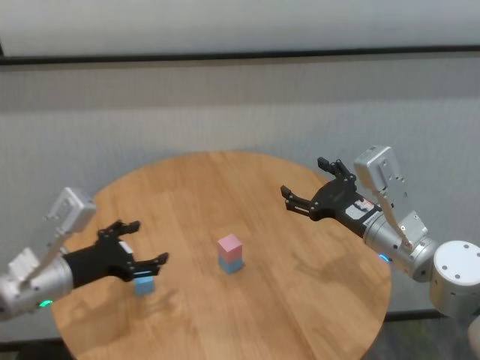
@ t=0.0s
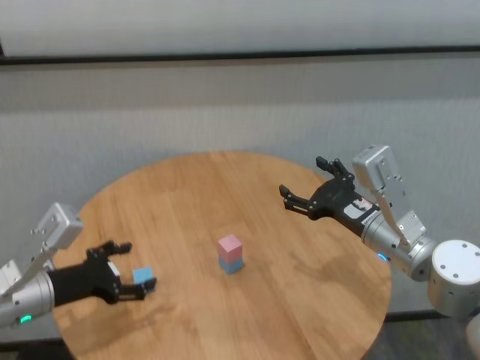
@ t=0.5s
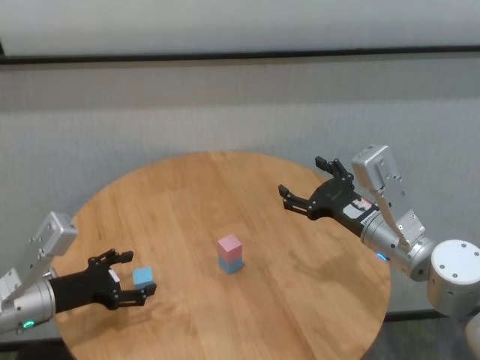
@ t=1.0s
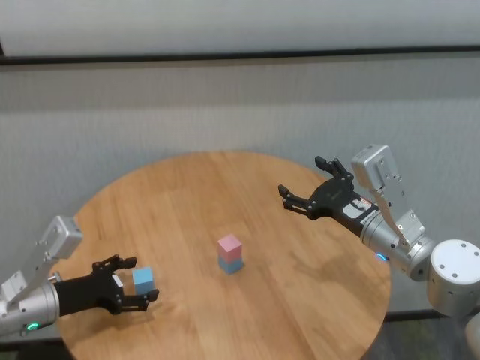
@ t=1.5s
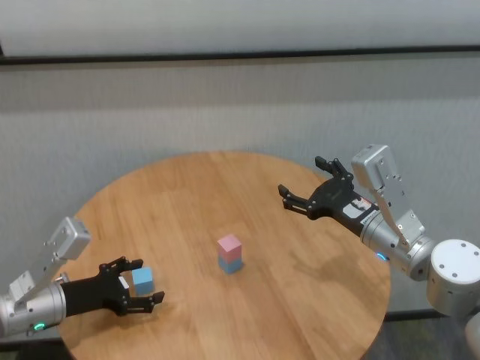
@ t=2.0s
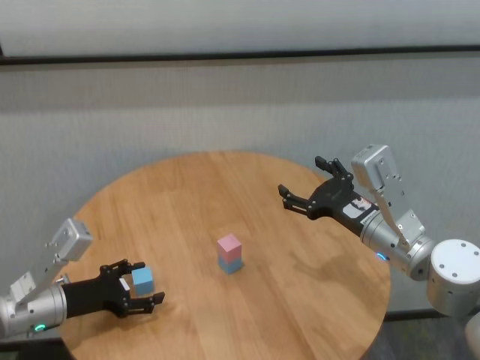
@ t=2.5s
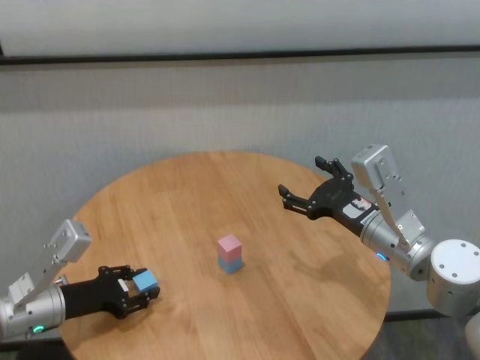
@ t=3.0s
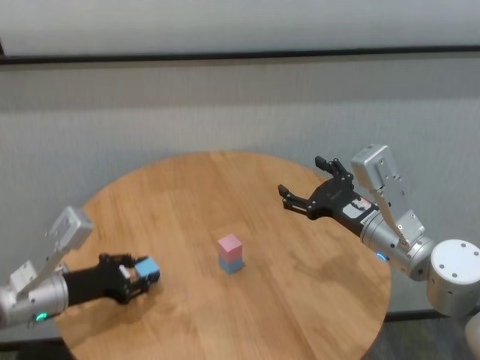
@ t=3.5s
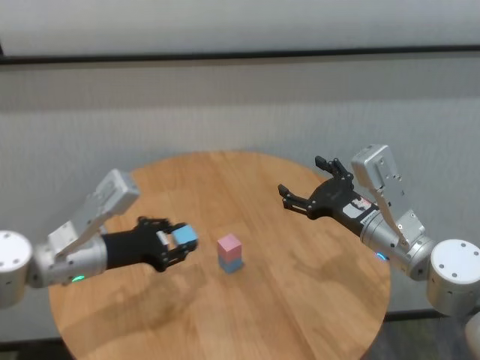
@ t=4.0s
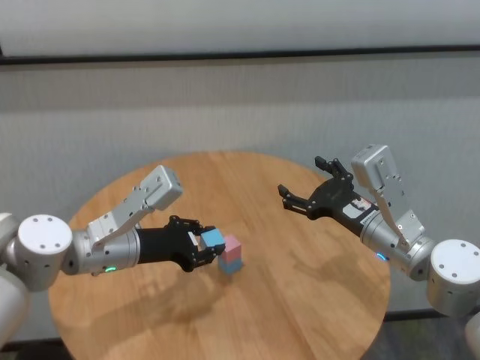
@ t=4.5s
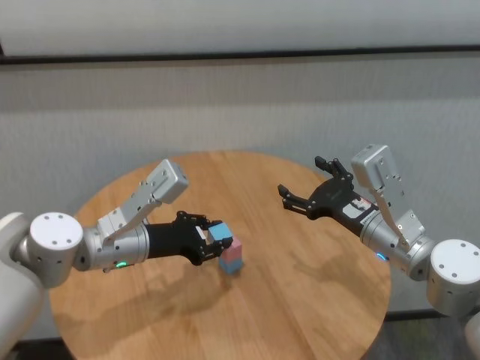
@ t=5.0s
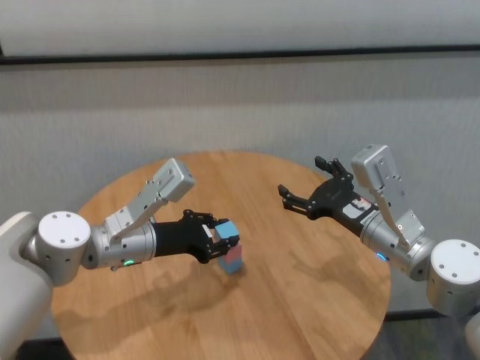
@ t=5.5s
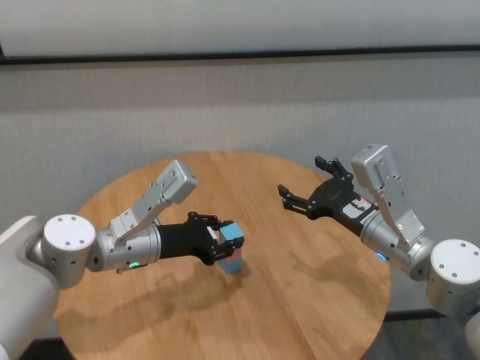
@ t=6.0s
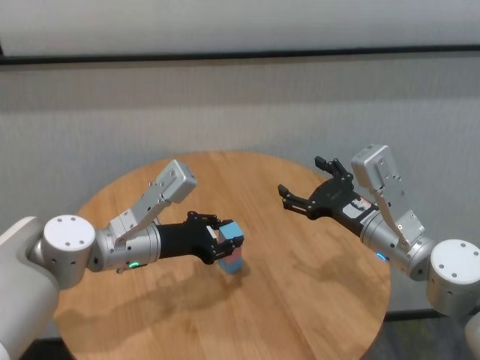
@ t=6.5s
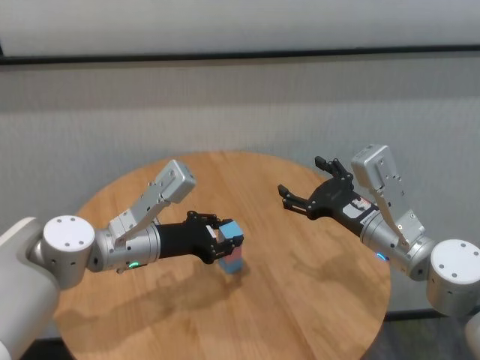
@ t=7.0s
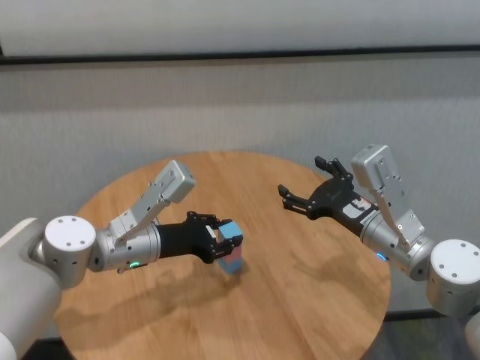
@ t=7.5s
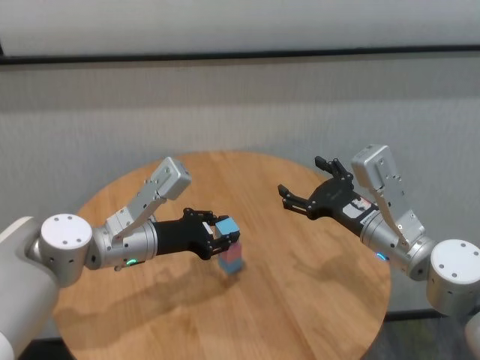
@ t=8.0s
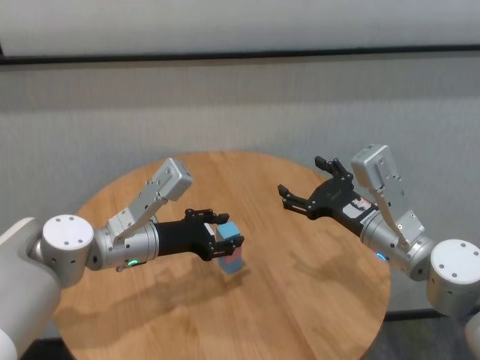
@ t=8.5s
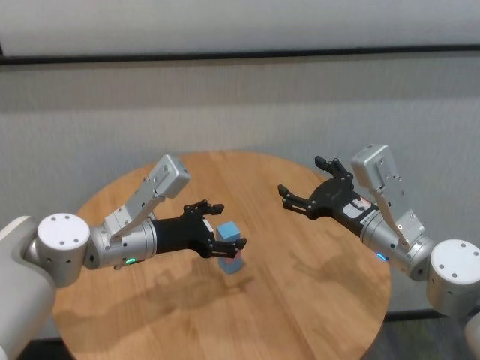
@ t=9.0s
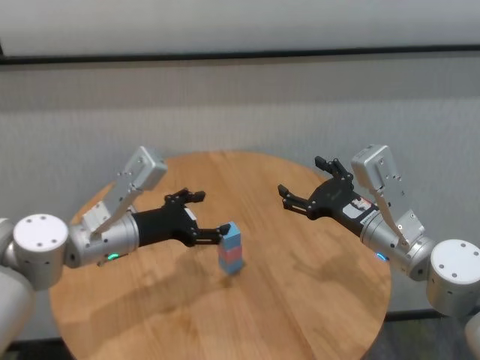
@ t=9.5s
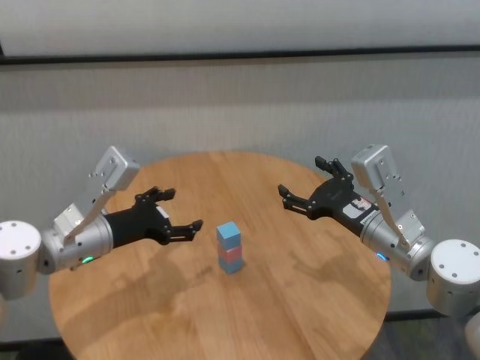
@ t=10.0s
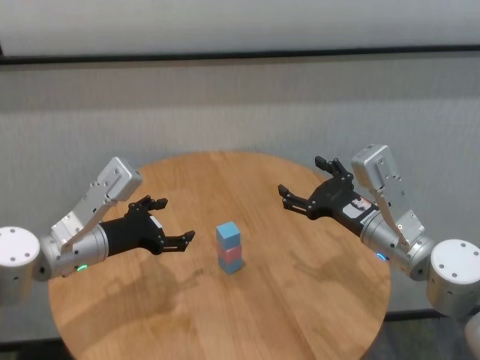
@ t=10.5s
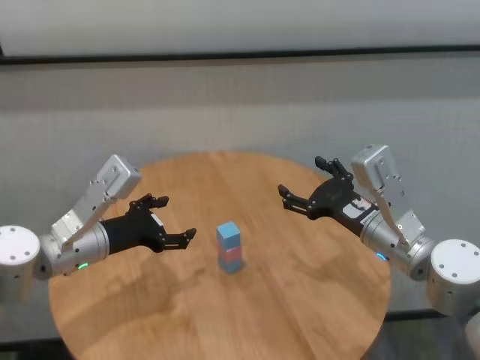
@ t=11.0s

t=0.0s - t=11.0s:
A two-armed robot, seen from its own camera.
Task of the whole recording: stack building blocks on the table.
Step, t=0.0s - t=3.0s: Grasp the blue building block with left gripper.
Step, t=3.5s - t=8.5s: Place the blue building block on the pink building blocks with left gripper.

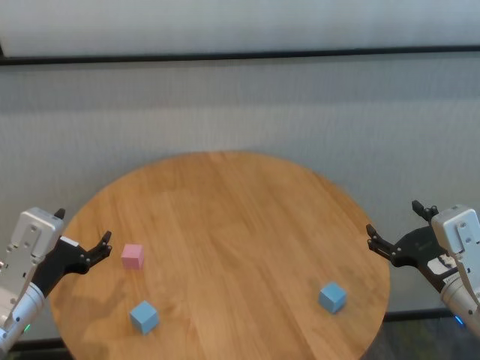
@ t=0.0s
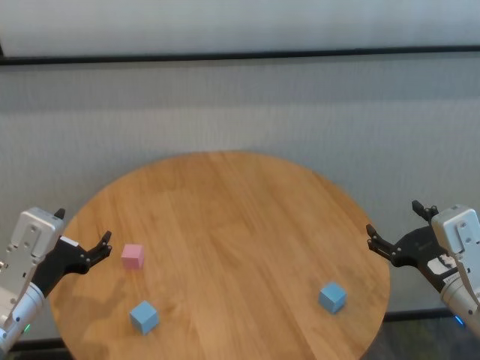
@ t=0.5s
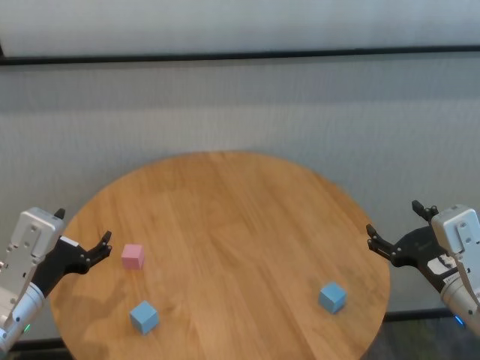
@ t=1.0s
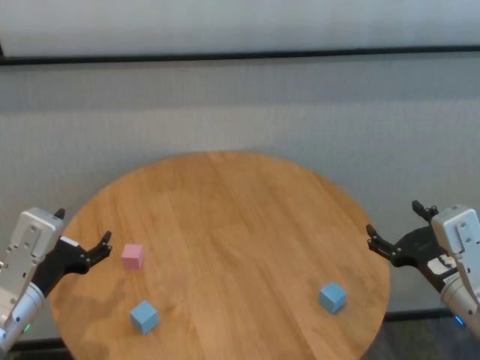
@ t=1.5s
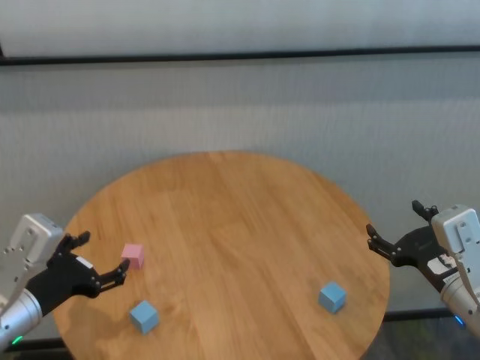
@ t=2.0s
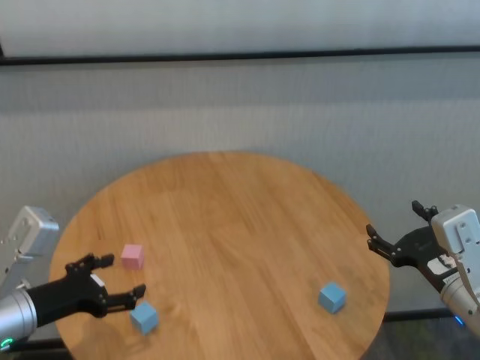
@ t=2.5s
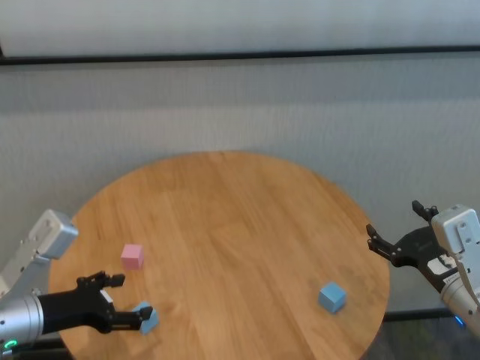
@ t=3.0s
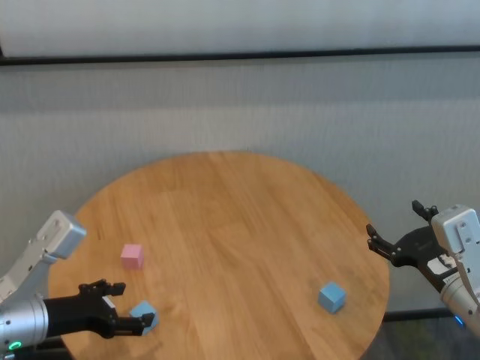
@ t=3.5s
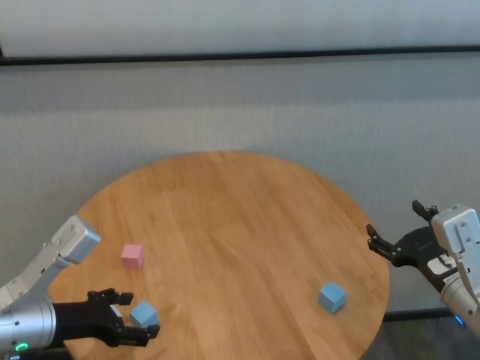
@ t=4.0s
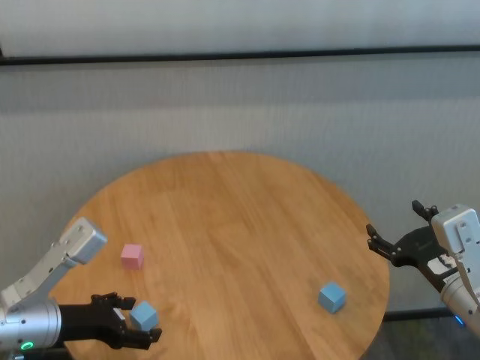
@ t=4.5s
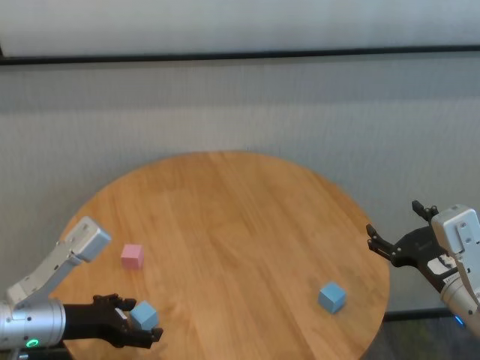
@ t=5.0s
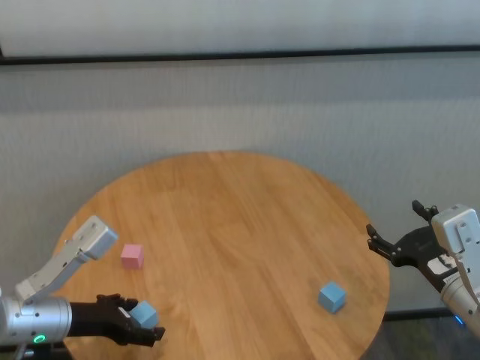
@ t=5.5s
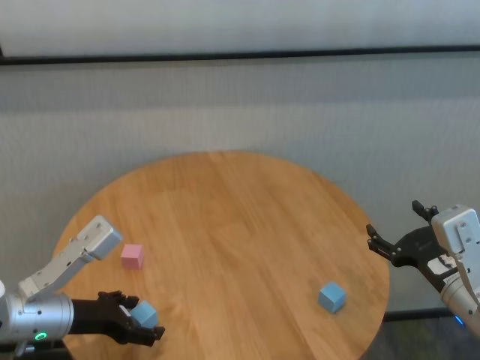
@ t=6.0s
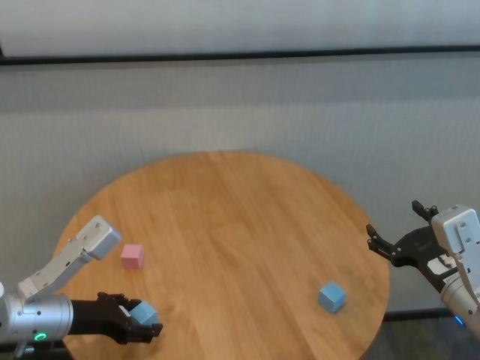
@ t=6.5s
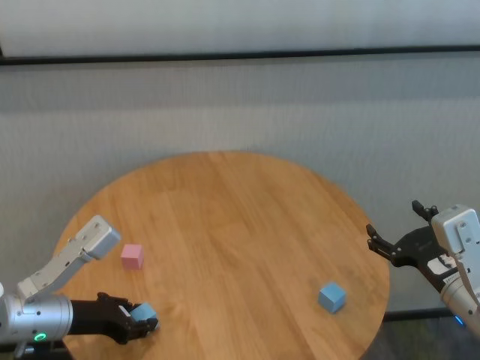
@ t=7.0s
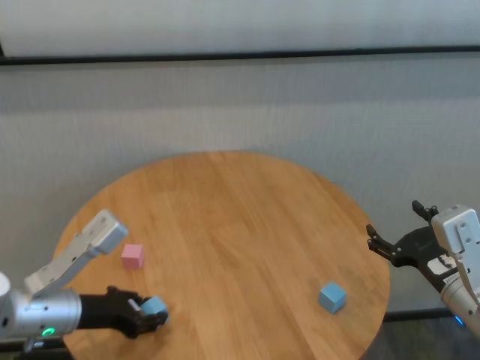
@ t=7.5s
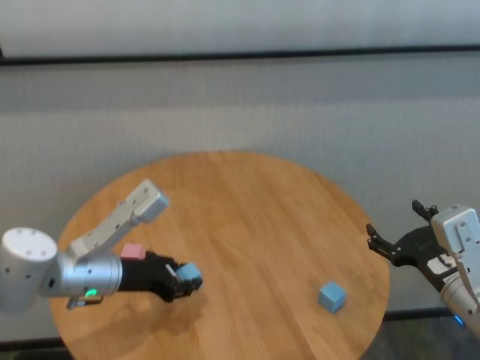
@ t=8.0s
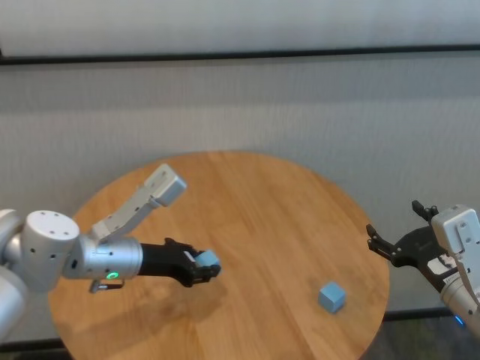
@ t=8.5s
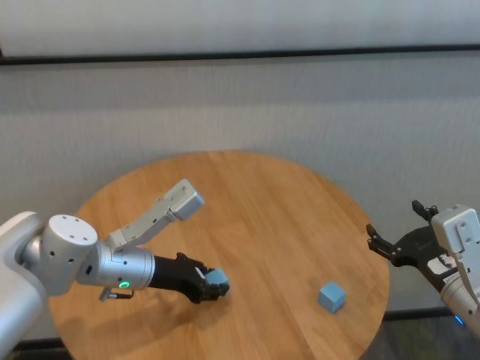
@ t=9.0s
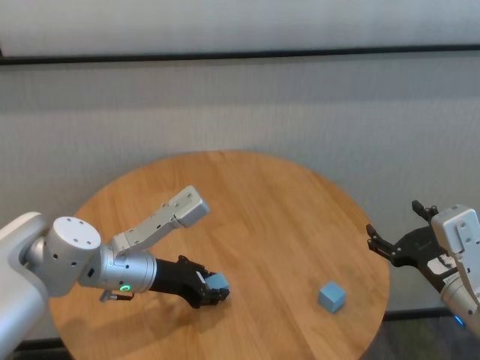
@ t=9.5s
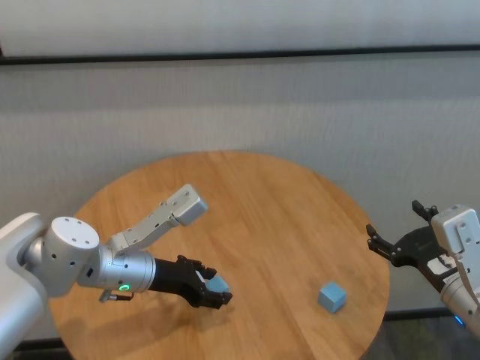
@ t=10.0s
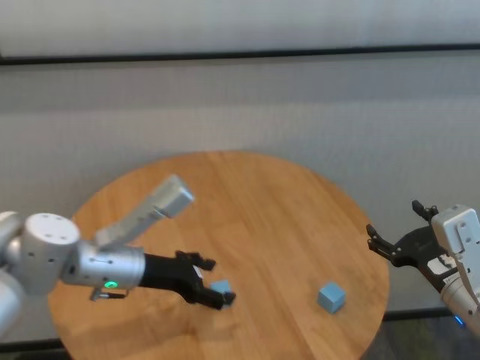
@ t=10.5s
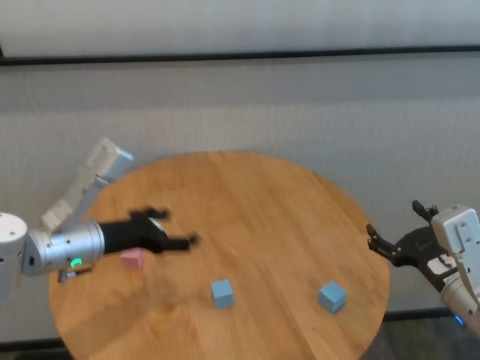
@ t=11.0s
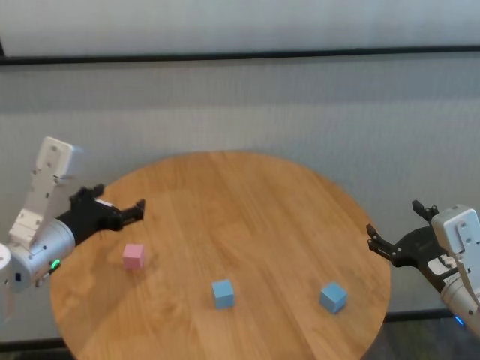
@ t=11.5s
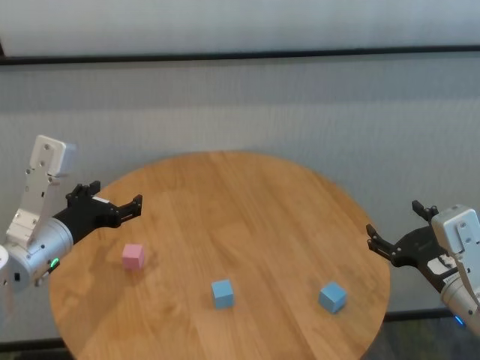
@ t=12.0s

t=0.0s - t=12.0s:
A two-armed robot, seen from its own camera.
Task of the whole recording: stack building blocks on the table.
Step, t=0.0s - t=7.0s: Grasp the blue building block with left gripper.
Step, t=7.5s - t=10.0s: Place the blue building block in the center of table with left gripper.

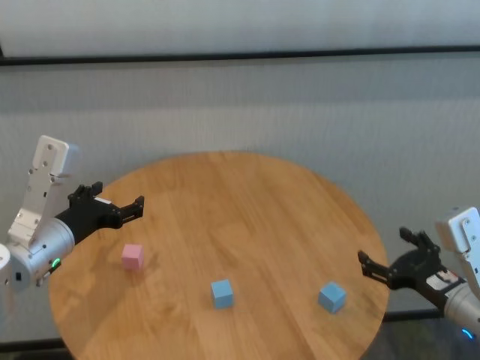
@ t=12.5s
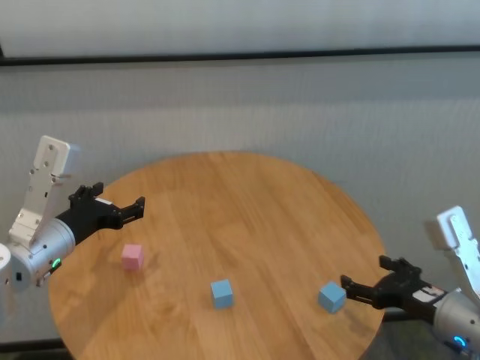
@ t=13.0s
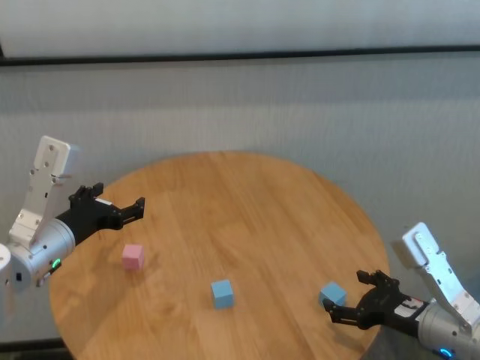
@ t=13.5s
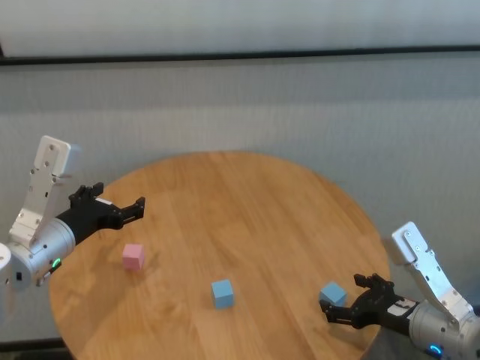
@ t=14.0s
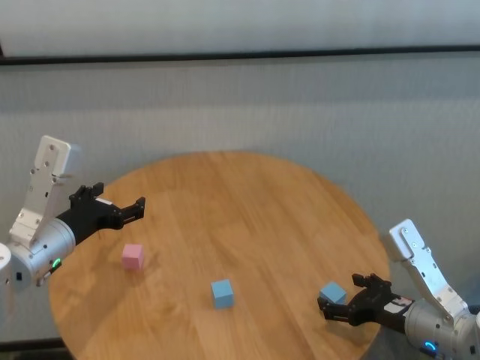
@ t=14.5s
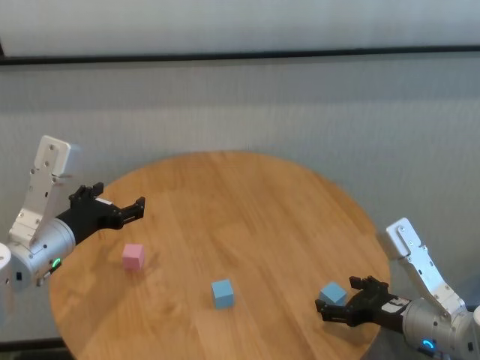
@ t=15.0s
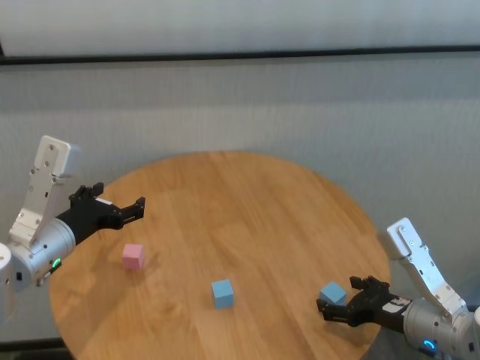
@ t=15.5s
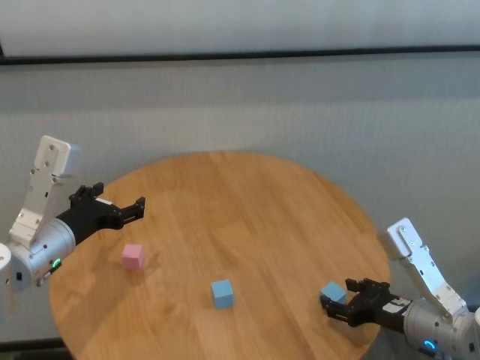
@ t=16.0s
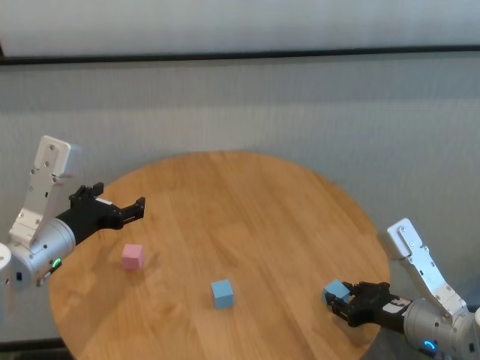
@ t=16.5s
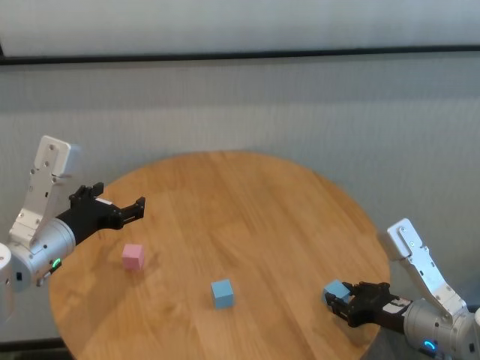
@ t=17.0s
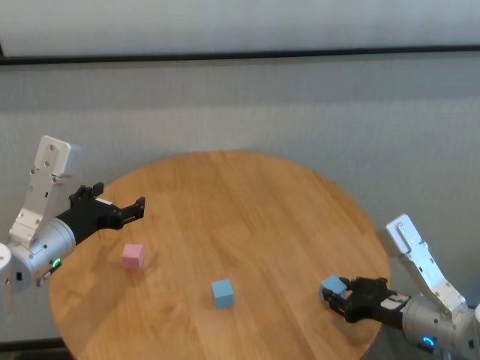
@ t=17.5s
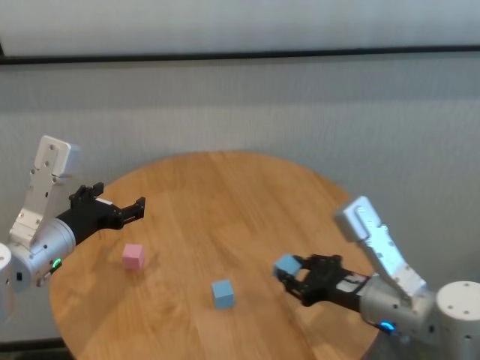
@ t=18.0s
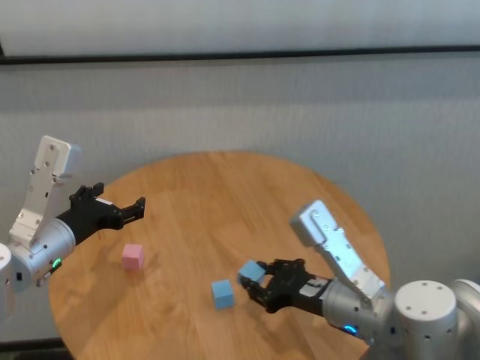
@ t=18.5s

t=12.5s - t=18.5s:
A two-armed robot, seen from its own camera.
Task of the whole recording: stack building blocks on the table.
Step, t=12.5s - t=16.5s: Grasp the blue building block with right gripper.
